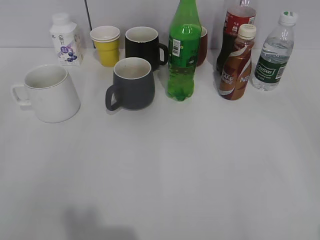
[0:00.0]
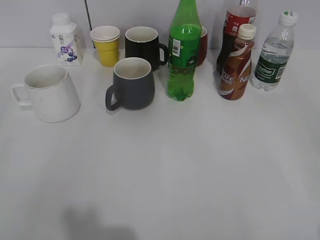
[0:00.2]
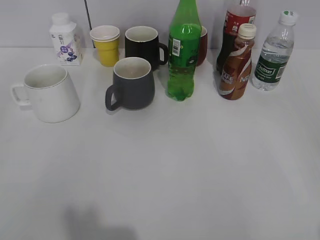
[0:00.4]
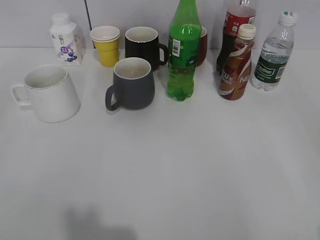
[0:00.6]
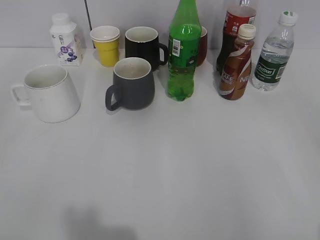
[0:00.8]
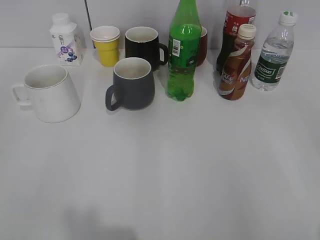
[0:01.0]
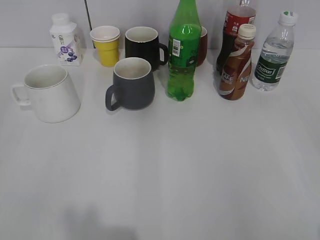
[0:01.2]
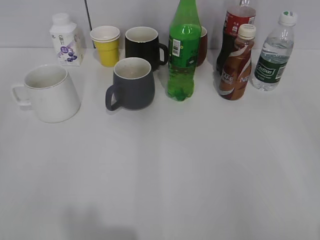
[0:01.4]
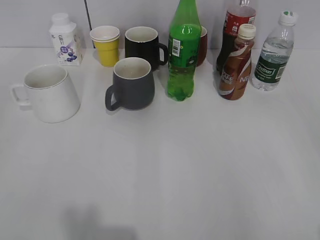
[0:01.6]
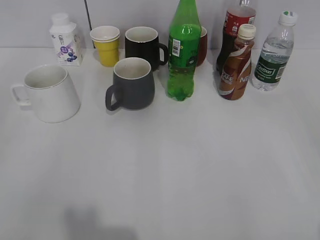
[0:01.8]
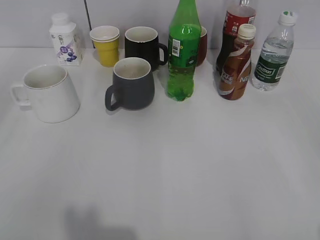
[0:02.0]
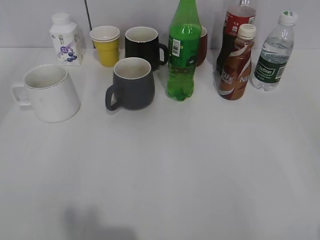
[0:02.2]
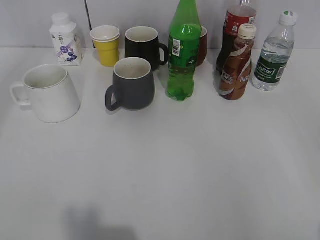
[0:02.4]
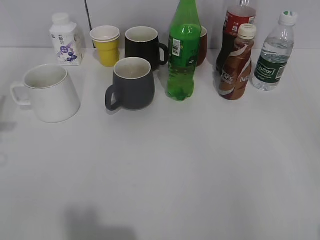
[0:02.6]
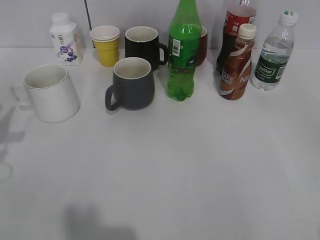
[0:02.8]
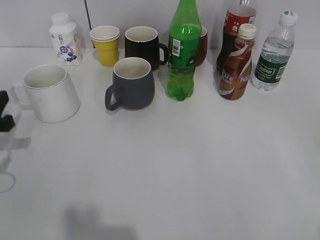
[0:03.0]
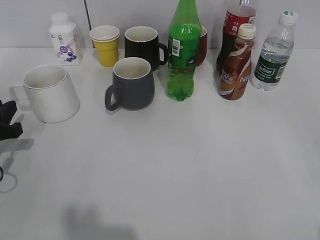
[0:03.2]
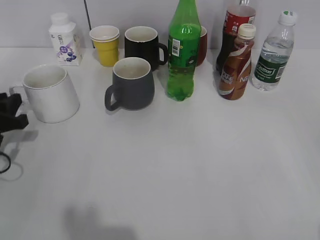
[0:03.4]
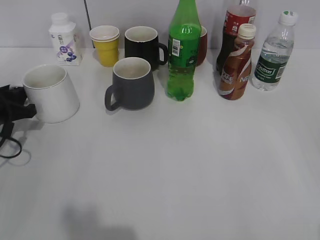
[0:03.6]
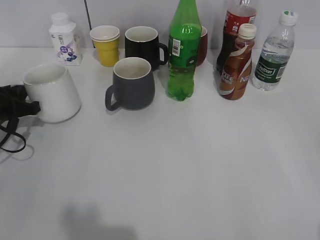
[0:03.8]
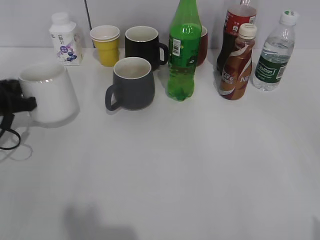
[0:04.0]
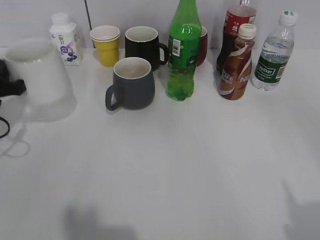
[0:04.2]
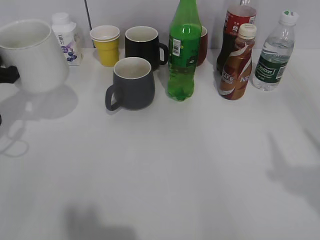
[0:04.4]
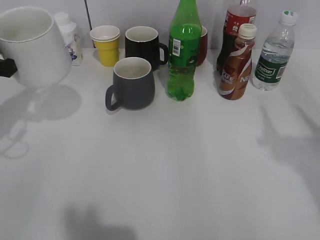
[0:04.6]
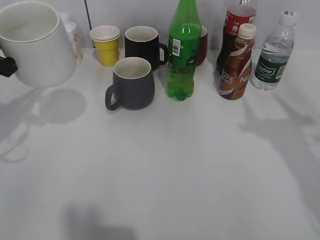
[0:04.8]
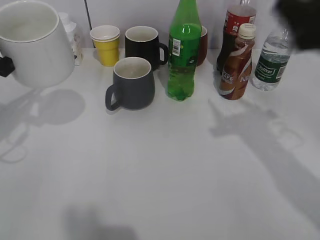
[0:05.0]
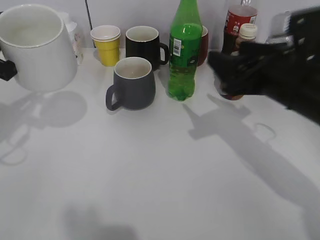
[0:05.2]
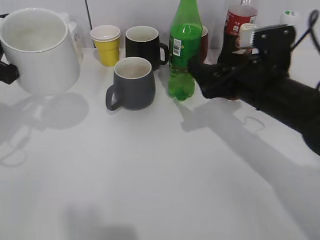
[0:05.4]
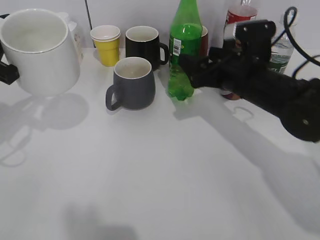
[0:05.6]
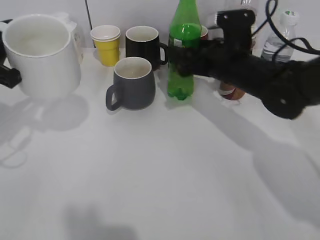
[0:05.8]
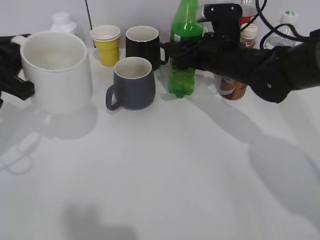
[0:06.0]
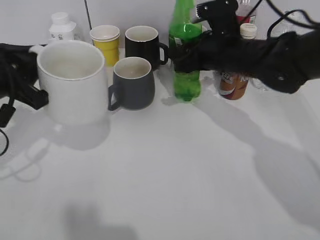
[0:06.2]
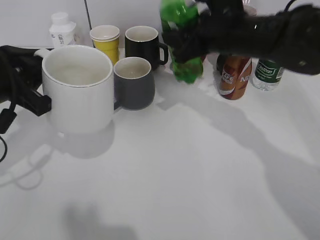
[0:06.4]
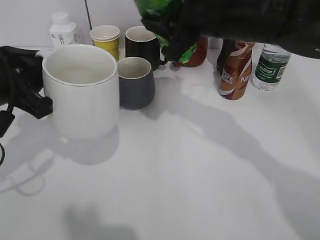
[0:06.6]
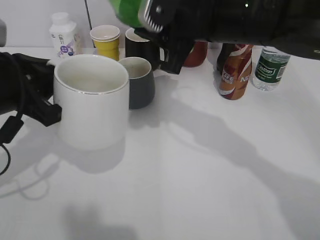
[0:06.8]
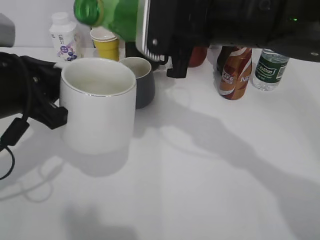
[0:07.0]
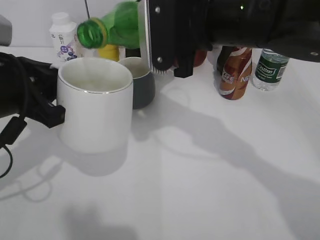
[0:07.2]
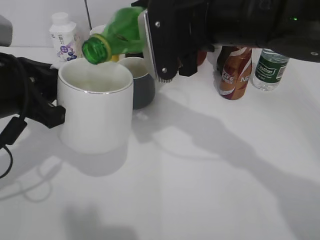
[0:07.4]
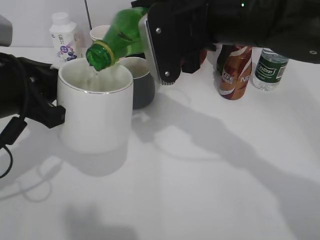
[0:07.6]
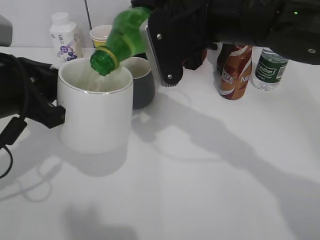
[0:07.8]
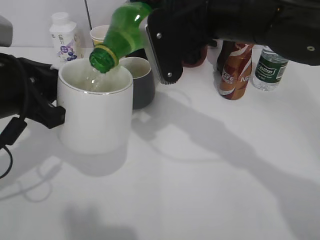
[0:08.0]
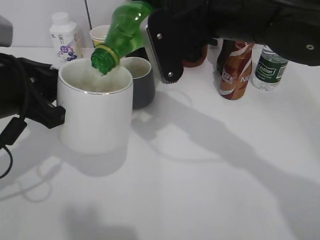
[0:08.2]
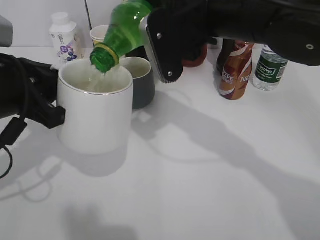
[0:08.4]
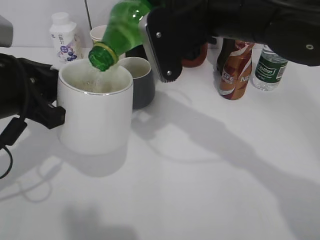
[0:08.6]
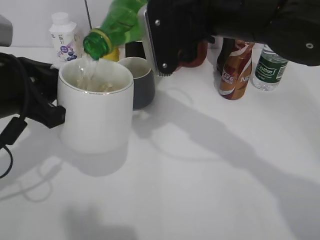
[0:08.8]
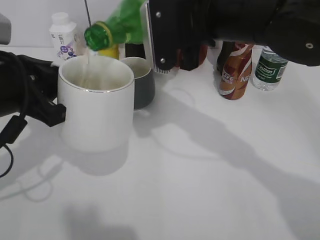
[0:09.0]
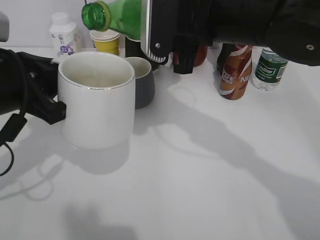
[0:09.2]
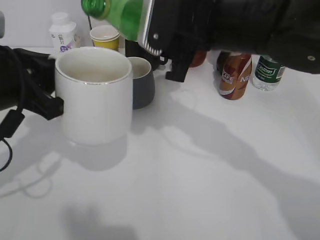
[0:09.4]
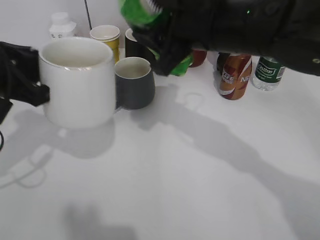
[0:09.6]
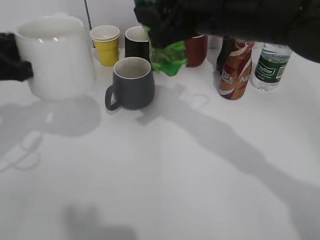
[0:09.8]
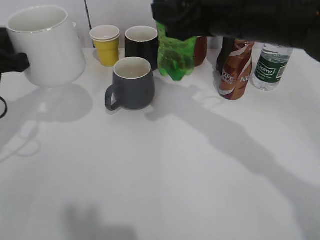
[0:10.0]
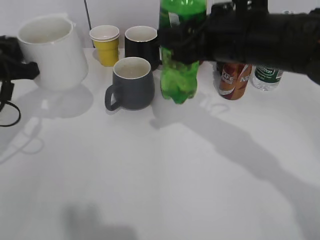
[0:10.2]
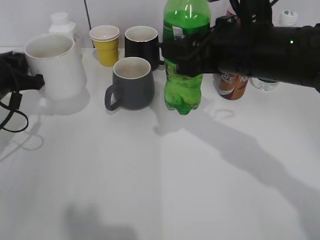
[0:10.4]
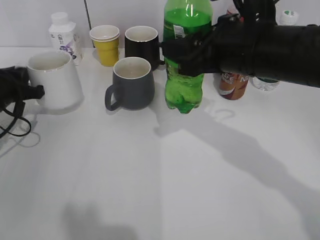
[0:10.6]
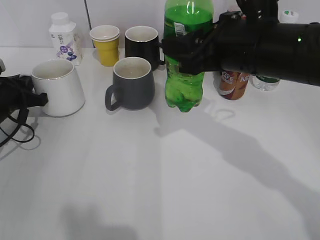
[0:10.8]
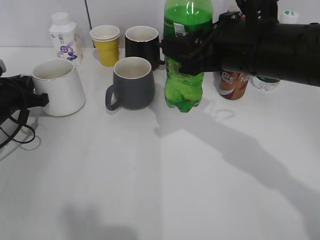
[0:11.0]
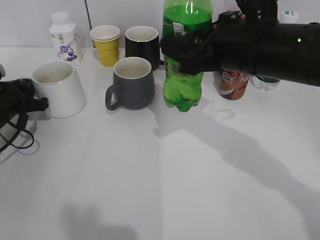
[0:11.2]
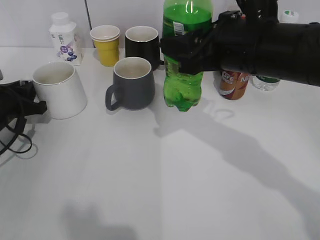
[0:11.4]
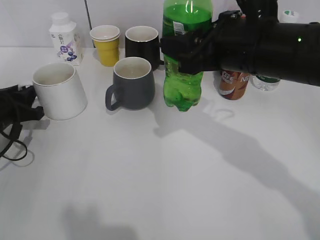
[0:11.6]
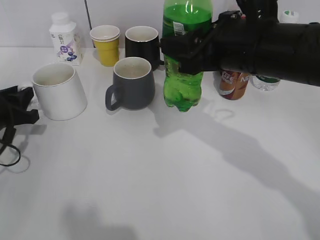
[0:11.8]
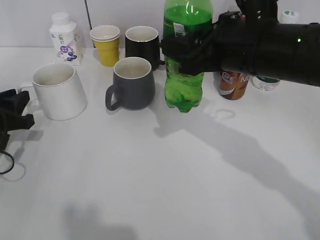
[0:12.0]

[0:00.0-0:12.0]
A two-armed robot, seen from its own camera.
Step, 0:01.8 to 0:03.6: Grasp the white cup with left gripper.
Step, 0:04.0 to 0:04.6: Lift the white cup with left gripper.
Step, 0:05.0 to 0:05.8: Grasp the bottle with sprite with right gripper.
Step, 0:06.0 to 0:09.2: Pour the sprite from bottle to cup with right gripper.
Step, 0:09.4 to 0:11.2: Place the white cup on the table with left gripper.
0:01.6 to 0:03.0: The left gripper moves forward and downward, some 25 cm.
0:03.0 to 0:04.4: The left gripper changes place by approximately 5 cm, and closes its fingers.
0:04.4 to 0:06.0: The right gripper goes some 40 cm forward, to the left and downward. The left gripper ends up roughly 5 cm from where it was.
0:06.0 to 0:07.6: The left gripper shifts some 5 cm to the right, while the right gripper shifts approximately 15 cm upward, backward and to the left, and closes its fingers.
0:07.6 to 0:09.0: The grippers move only a little.
0:09.0 to 0:10.4: The left gripper heads forward, to the left and downward, covering approximately 15 cm; the right gripper moves some 5 cm.
0:10.4 to 0:12.0: The left gripper moves some 5 cm, and opens up.

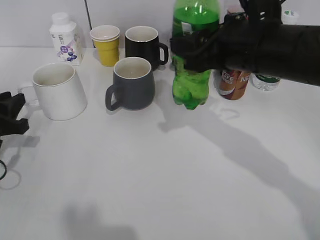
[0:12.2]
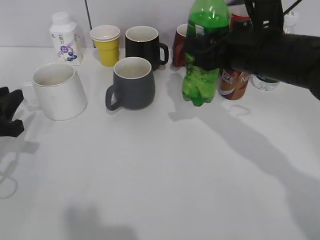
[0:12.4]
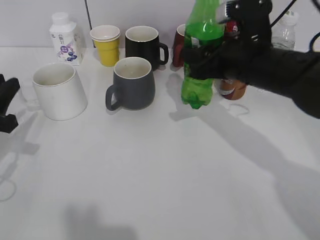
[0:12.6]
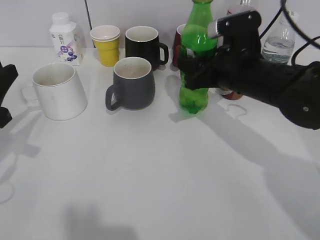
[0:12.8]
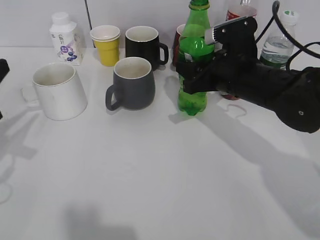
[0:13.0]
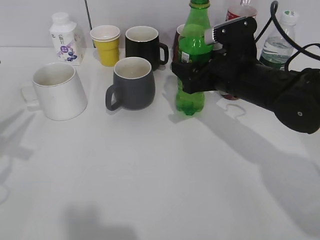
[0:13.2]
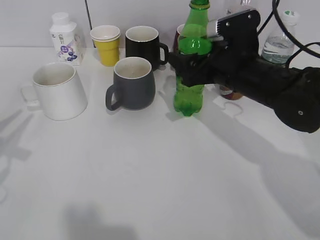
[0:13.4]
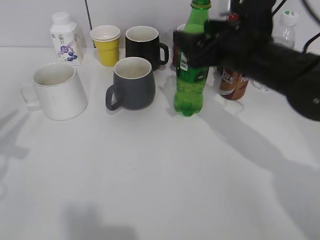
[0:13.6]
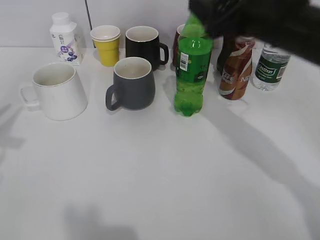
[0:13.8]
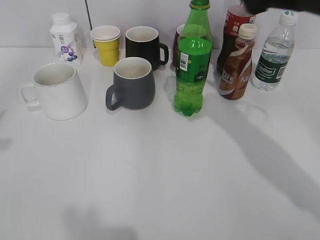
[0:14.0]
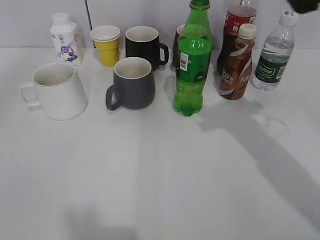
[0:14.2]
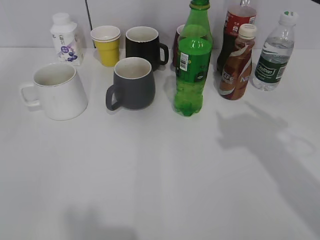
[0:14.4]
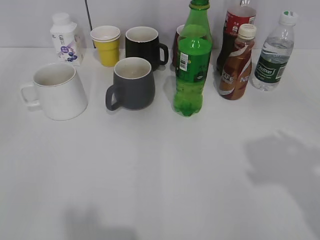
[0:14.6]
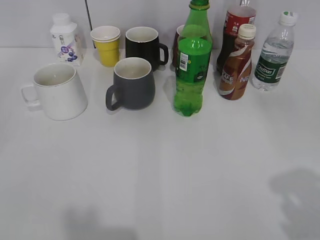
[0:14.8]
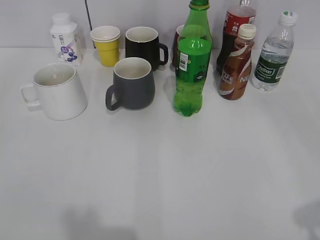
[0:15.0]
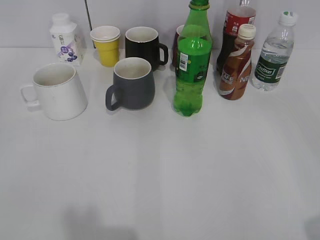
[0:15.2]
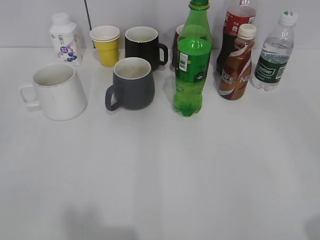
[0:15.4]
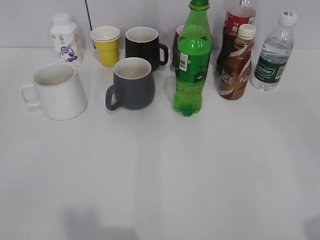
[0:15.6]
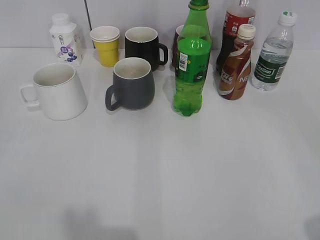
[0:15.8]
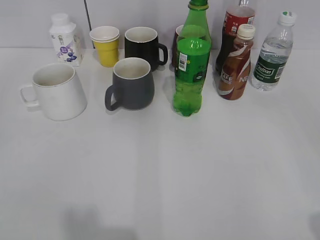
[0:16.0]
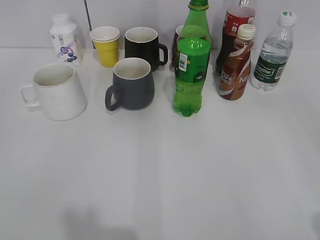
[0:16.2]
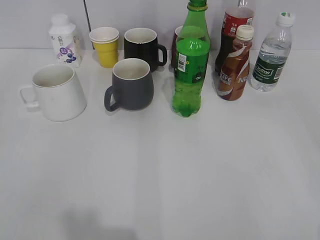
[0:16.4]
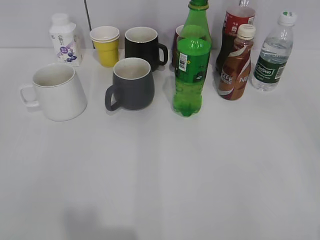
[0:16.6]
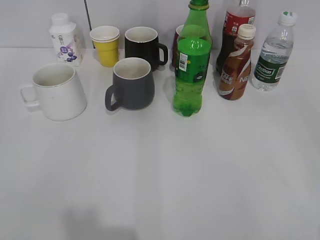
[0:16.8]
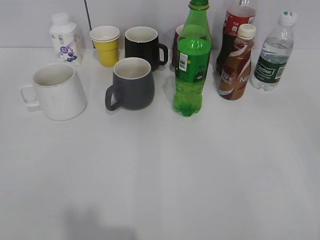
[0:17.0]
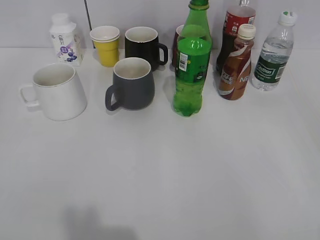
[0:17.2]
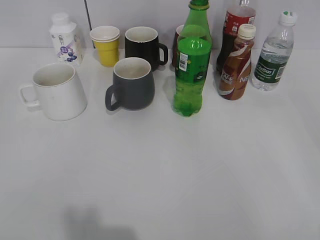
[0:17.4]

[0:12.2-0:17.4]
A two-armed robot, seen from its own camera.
Step, 0:12.2 to 0:13.6: Place the sprite bottle on the table with right gripper.
0:12.2 to 0:14.0: The left gripper moves upward and backward, roughly 20 cm; the right gripper moves upward and to the right, about 10 cm, and opens.
0:14.0 to 0:15.6: The right gripper shifts about 30 cm backward and to the right.

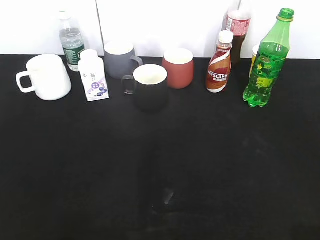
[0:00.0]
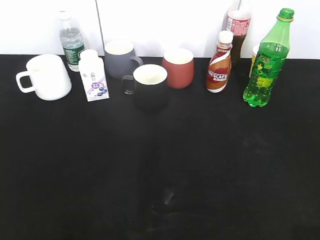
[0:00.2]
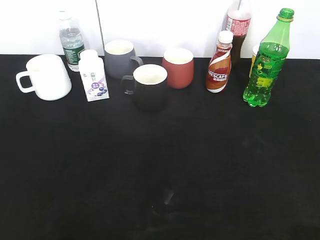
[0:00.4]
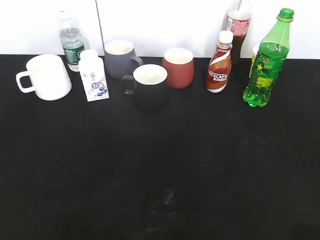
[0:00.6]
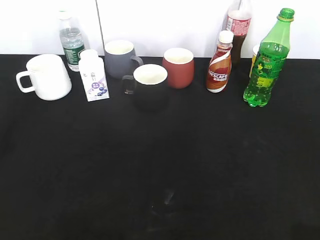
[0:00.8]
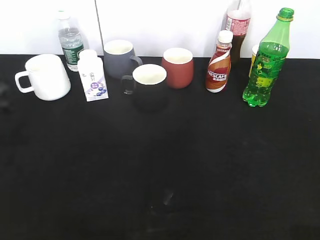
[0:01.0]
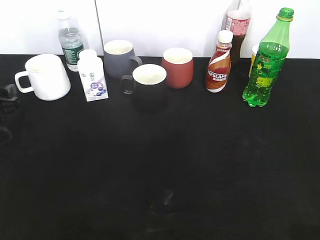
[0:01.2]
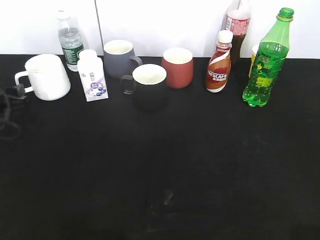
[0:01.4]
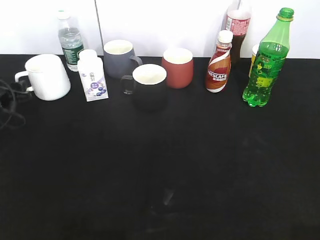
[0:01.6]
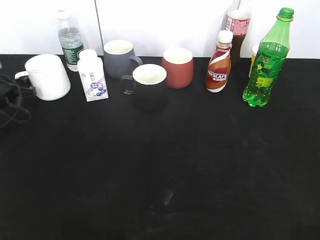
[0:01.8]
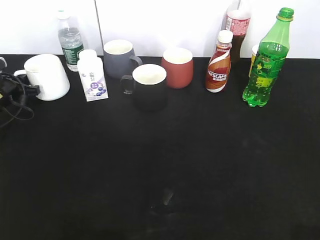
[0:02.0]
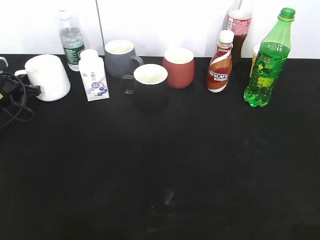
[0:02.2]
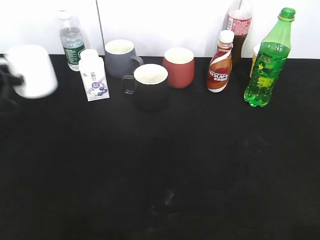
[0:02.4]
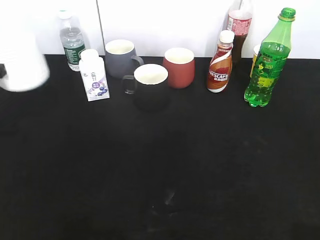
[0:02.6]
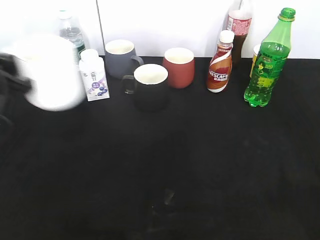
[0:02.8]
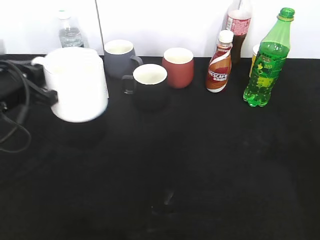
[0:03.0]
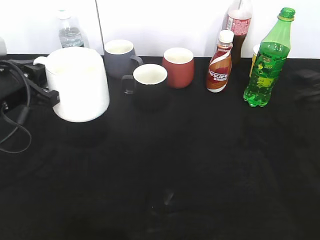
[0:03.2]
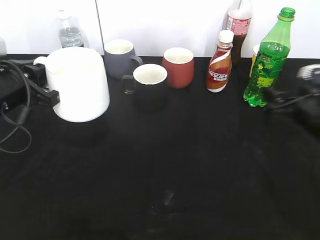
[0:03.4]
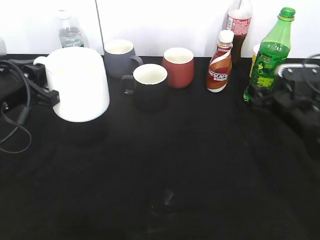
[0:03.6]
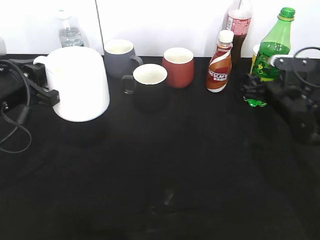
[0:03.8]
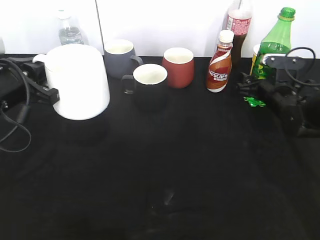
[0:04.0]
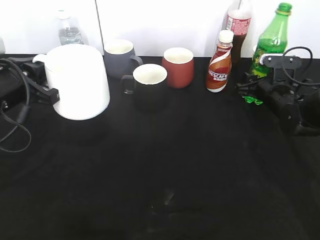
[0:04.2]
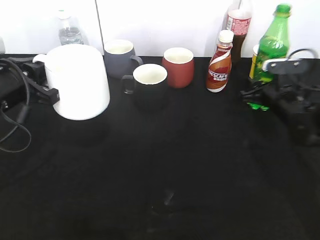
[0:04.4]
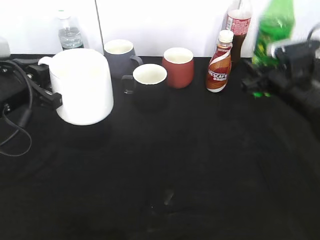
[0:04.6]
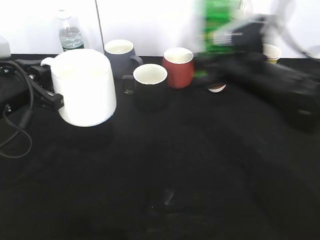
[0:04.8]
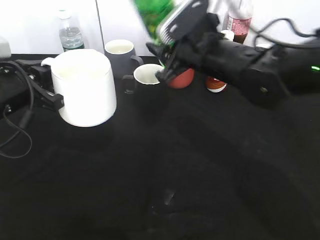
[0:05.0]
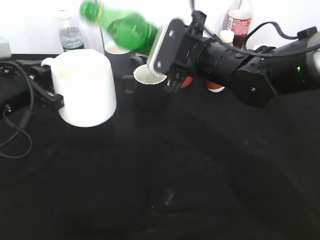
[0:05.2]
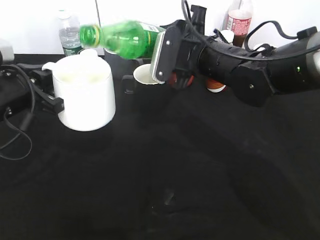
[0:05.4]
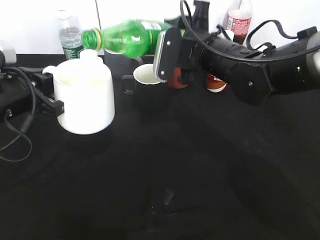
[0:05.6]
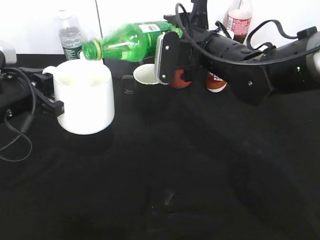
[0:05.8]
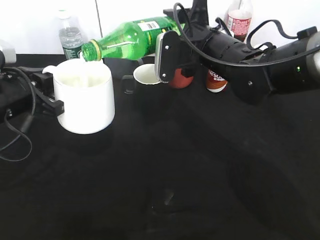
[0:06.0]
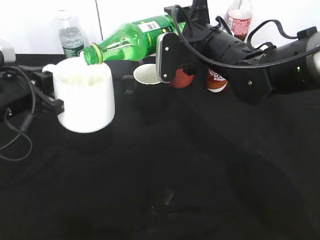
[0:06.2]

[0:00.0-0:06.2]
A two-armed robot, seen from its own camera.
Step, 0:00.0 to 0:02.0: Grasp the white cup with left gripper.
Step, 0:02.2 to 0:03.0: Lift the white cup with left gripper.
Step, 0:03.2 to 0:04.2: Grasp the bottle with sprite with right gripper.
0:00.0 to 0:01.6: The left gripper is displaced forward and downward by approximately 40 cm.
0:01.6 to 0:03.2: The left gripper is displaced backward, to the right and upward by about 20 cm, and closes up. Meanwhile the right gripper goes about 25 cm forward.
0:03.2 to 0:04.6: The right gripper heads forward and downward, covering approximately 10 cm, and closes its fingers.
0:04.6 to 0:06.2: The right gripper travels to the left and upward by some 15 cm.
